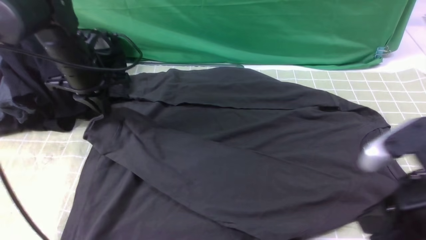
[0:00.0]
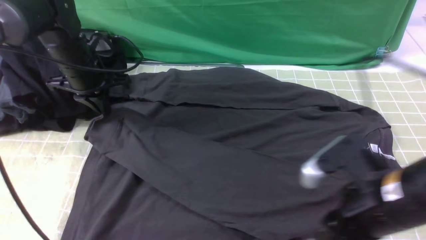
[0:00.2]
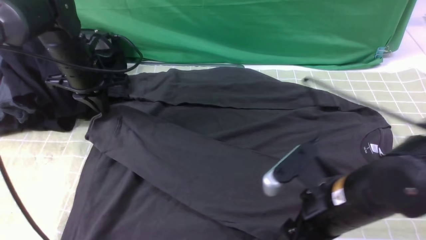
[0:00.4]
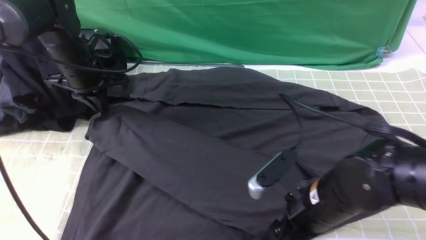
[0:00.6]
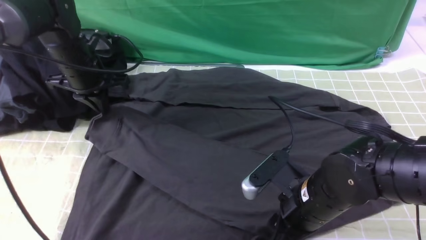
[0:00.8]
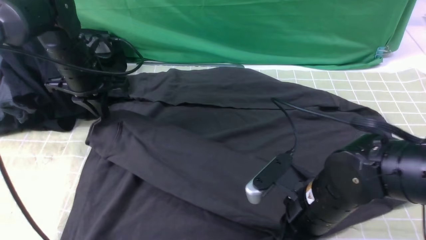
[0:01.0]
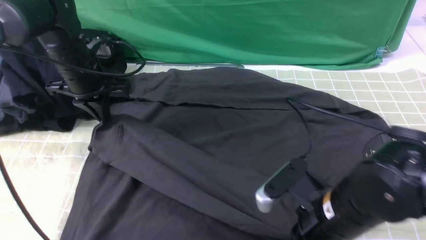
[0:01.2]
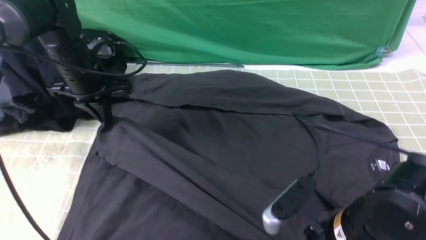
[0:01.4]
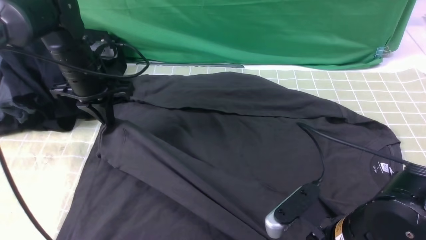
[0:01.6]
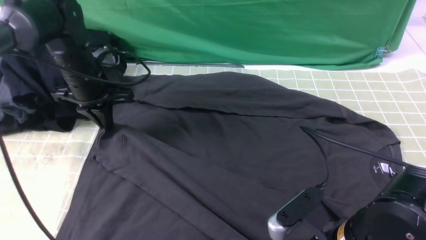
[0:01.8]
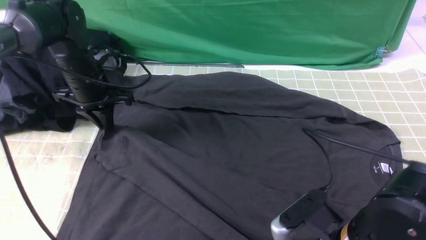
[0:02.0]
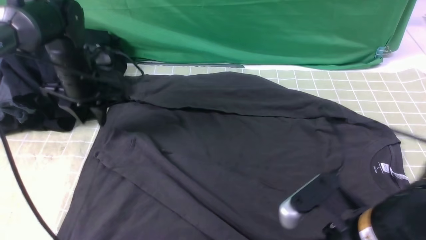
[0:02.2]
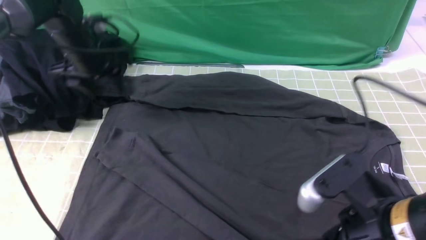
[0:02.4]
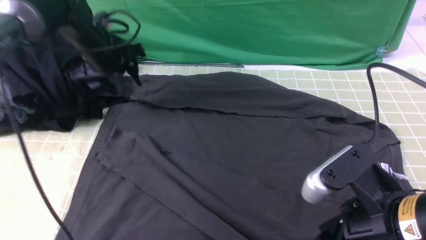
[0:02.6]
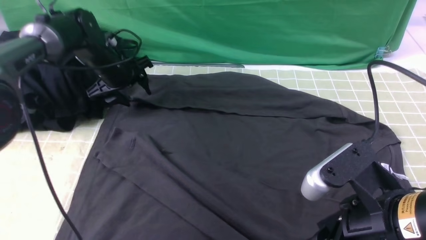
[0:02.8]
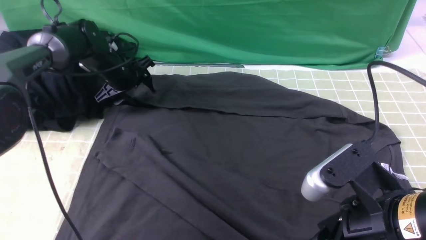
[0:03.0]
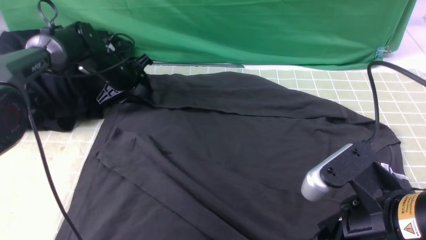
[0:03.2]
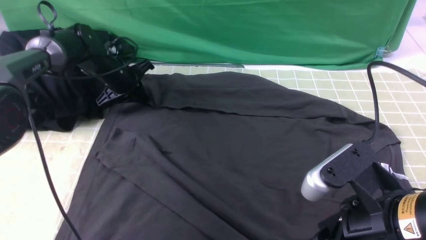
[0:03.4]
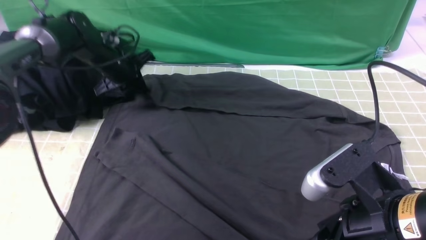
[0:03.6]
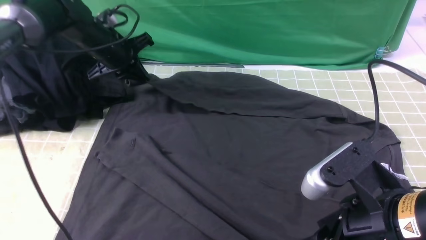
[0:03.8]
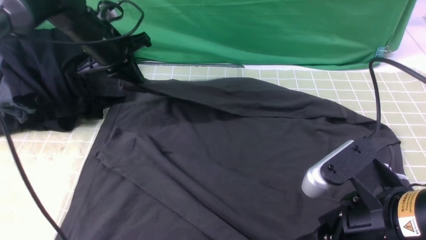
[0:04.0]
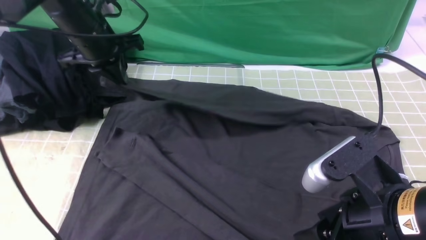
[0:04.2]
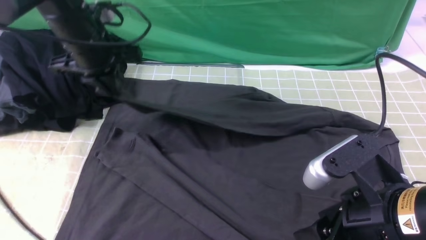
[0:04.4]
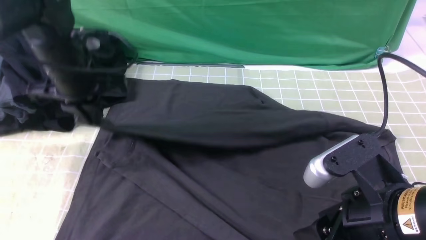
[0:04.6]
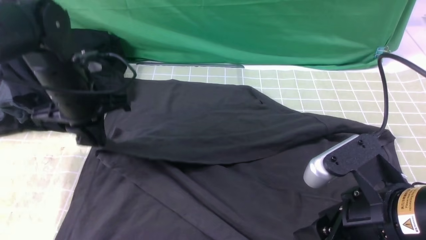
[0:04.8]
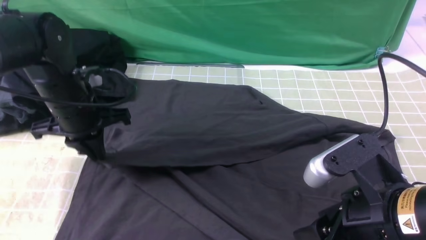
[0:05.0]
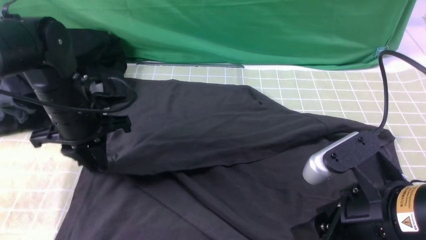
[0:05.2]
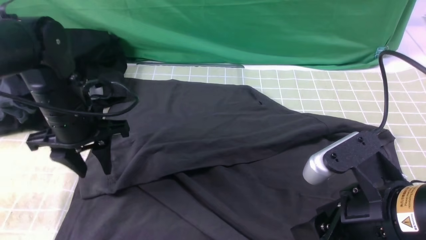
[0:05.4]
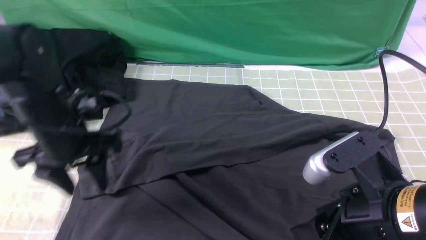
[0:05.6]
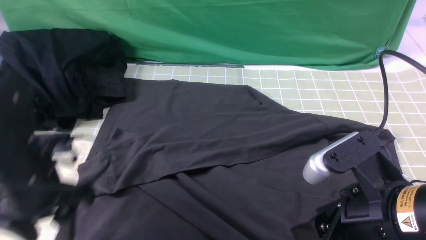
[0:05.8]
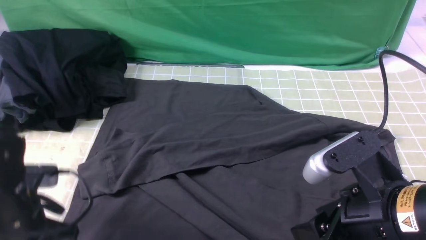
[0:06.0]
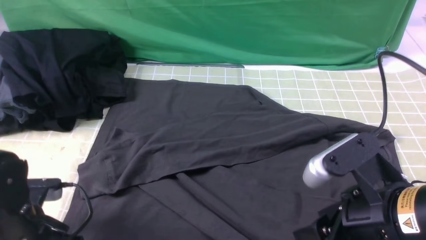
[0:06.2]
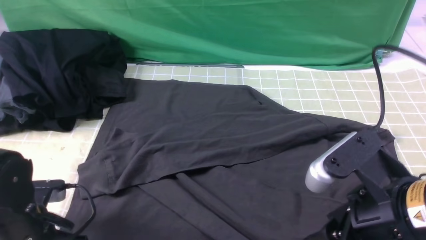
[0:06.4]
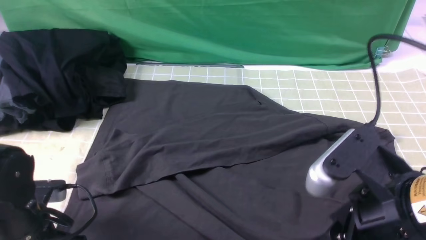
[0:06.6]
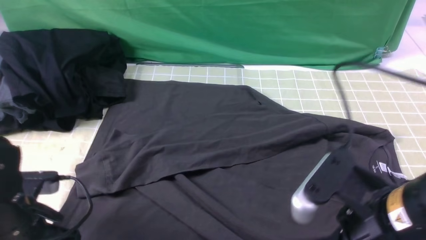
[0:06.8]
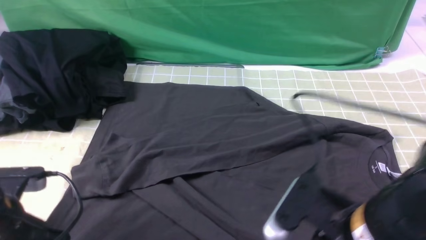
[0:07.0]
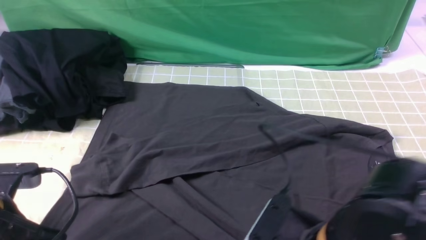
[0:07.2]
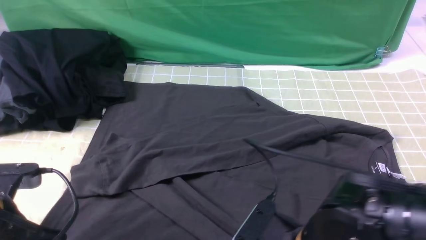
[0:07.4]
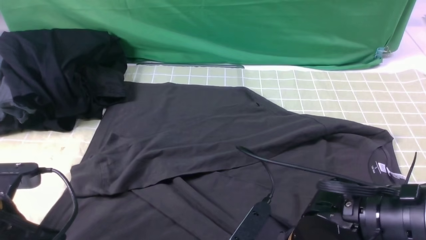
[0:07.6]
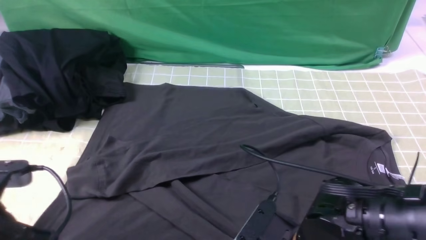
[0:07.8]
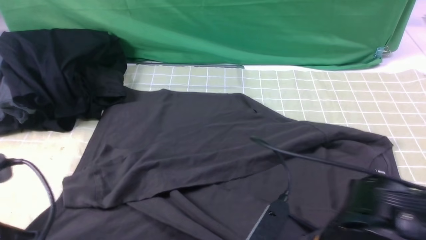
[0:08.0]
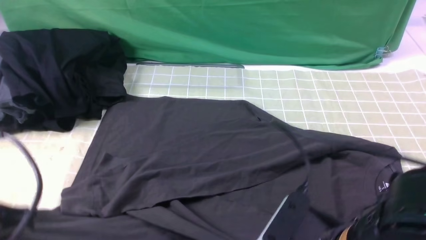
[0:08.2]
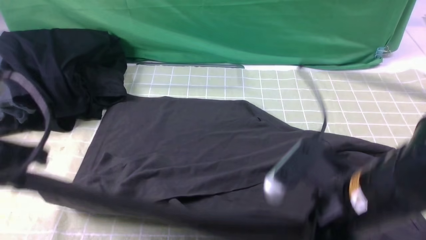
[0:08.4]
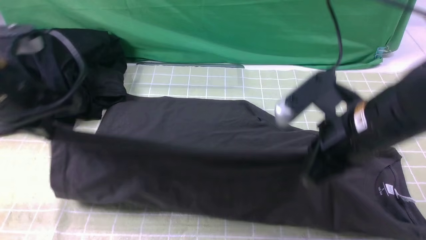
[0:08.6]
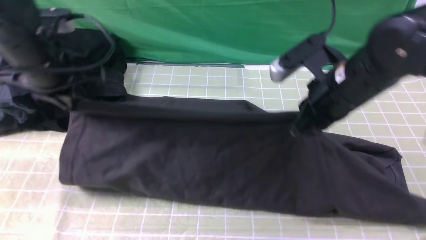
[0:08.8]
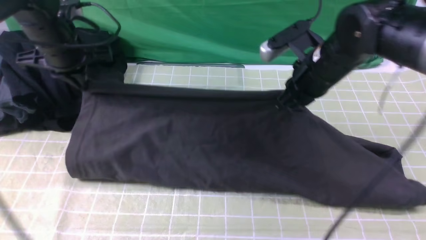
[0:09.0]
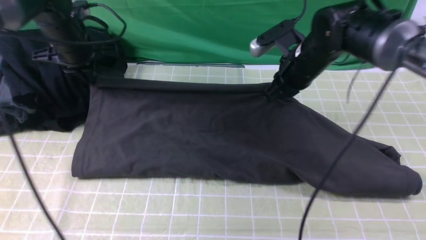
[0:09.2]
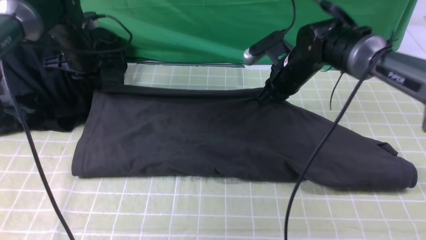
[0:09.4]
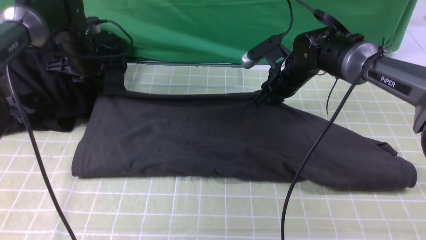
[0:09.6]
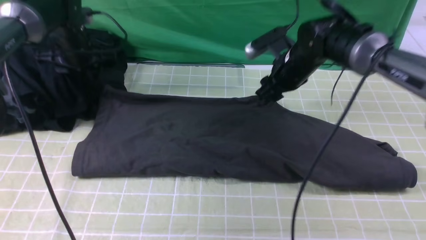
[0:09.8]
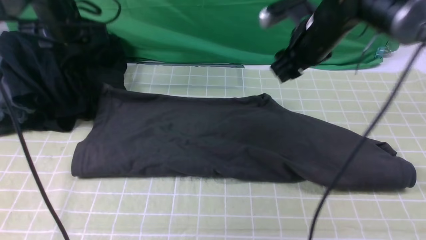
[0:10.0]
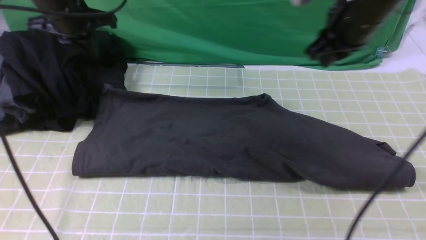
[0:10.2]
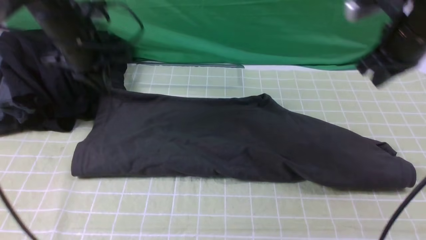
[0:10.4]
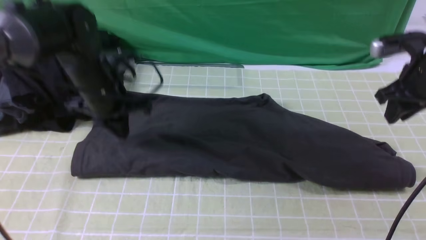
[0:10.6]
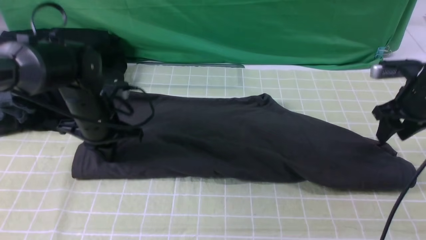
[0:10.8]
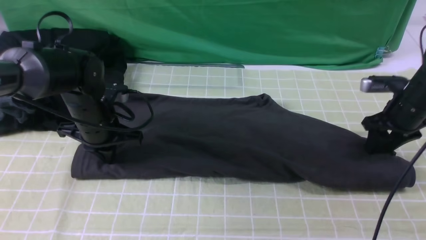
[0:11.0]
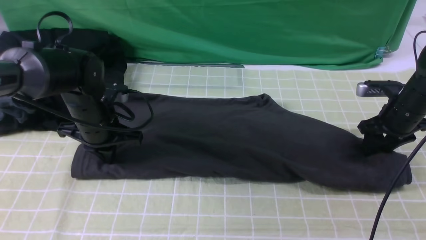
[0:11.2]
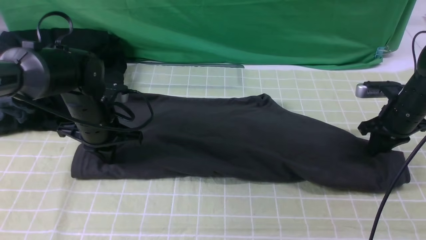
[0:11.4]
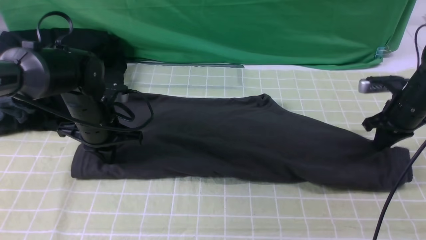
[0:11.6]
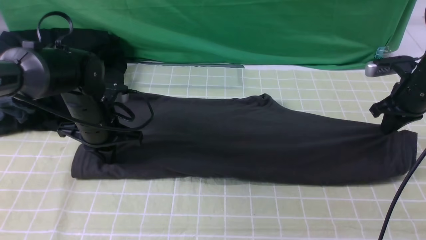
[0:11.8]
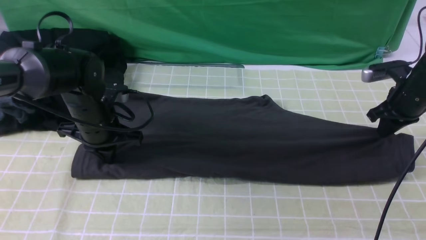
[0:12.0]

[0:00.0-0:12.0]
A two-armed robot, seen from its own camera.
Step, 0:00.0 to 0:02.2: use the left arm to drag and place the cuff at the centered position on the left edge of the fabric.
Step, 0:02.4 to 0:03.4: use the left arm to clamp the cuff farthest from it.
Step, 0:03.6 to 0:05.4: use the left arm to drag and drop the cuff onto the cuff closest to the left arm.
Step, 0:05.6 to 0:07.6: use both arms simultaneously to clamp the lower edge of the clothing fabric.
Step, 0:07.8 to 0:09.8: use both arms to drag the lower edge of the fabric forward and fold it over the upper edge.
0:00.0 to 0:01.6: The right gripper travels downward and to the left by about 10 cm, and opens, then closes again.
0:01.6 to 0:03.0: The left gripper travels forward and downward by approximately 10 cm, and opens its fingers. Meanwhile the right gripper moves upward, some 10 cm, and opens.
0:03.0 to 0:04.4: The left gripper moves upward and backward, approximately 15 cm, and closes.
0:04.4 to 0:06.0: The left gripper moves backward and downward, approximately 25 cm, and opens.
0:06.0 to 0:07.6: The left gripper changes place by approximately 5 cm, and closes. The right gripper moves downward and to the left, about 15 cm.
0:07.6 to 0:09.0: The right gripper travels forward and upward by roughly 25 cm, and closes up, while the left gripper is displaced forward by roughly 25 cm.
0:09.0 to 0:10.4: The left gripper reaches roughly 5 cm forward, then returns, and opens and closes again. Meanwhile the right gripper shifts approximately 10 cm to the right, and opens, then closes once more.
0:10.4 to 0:12.0: The left gripper travels downward by about 10 cm. The right gripper heads downward and to the right, covering approximately 15 cm, and opens and closes again.

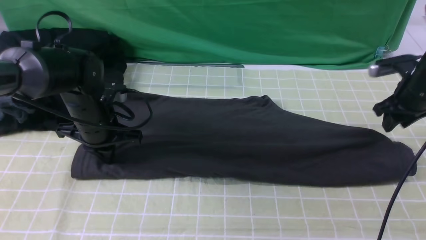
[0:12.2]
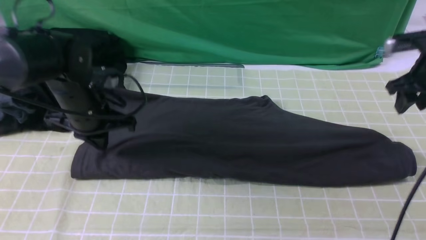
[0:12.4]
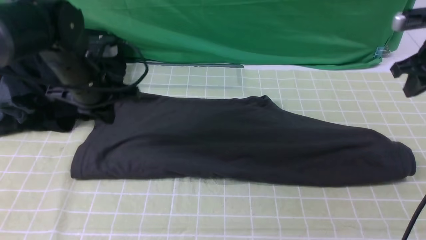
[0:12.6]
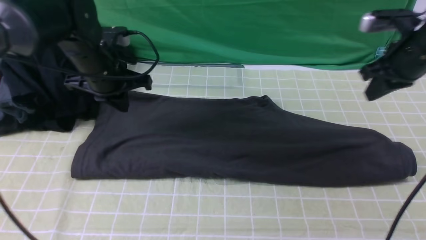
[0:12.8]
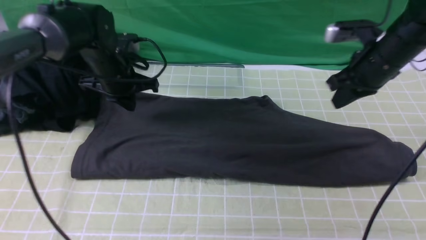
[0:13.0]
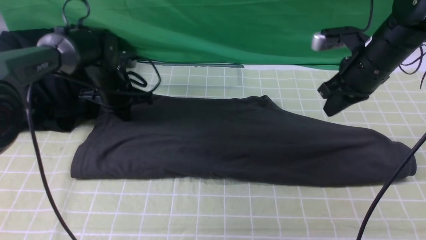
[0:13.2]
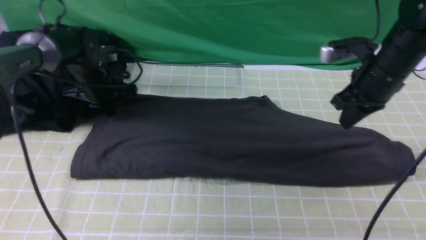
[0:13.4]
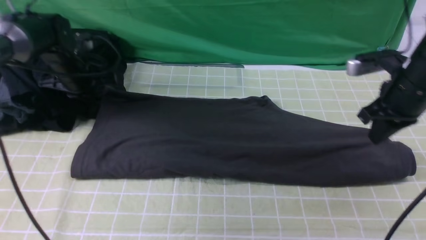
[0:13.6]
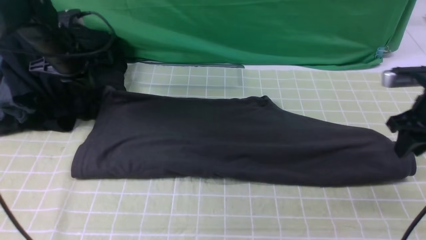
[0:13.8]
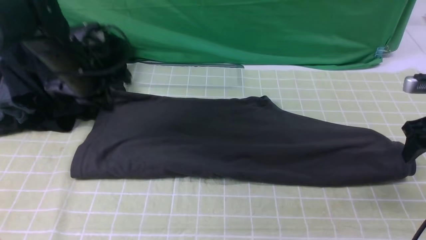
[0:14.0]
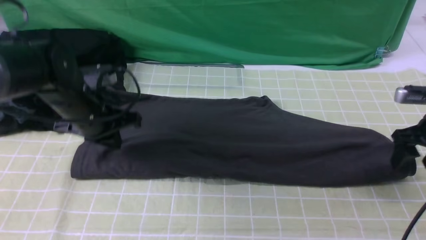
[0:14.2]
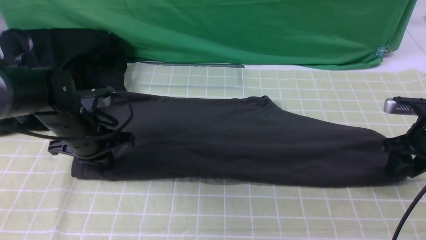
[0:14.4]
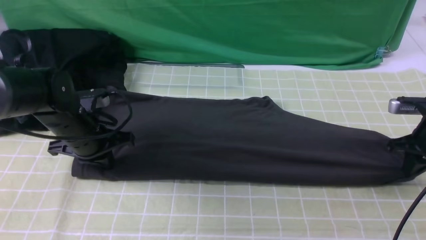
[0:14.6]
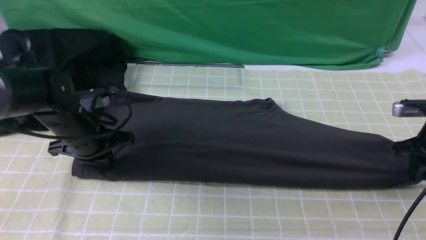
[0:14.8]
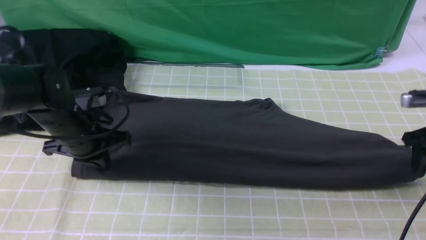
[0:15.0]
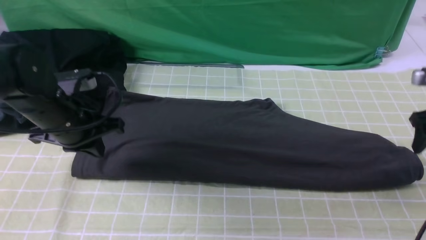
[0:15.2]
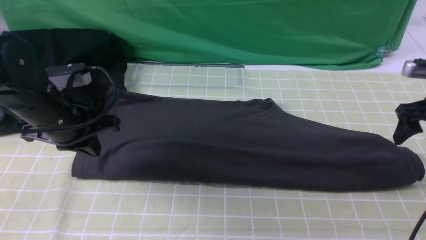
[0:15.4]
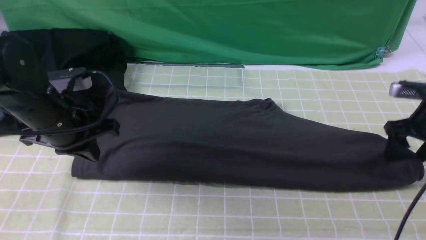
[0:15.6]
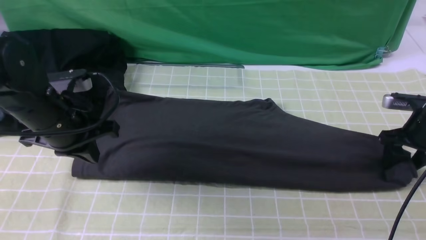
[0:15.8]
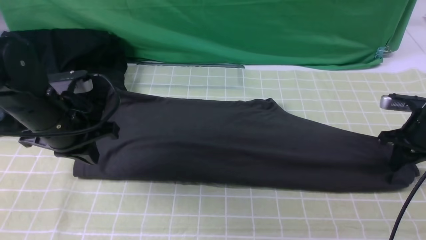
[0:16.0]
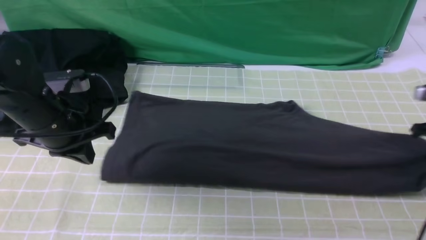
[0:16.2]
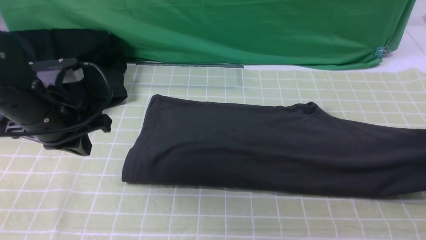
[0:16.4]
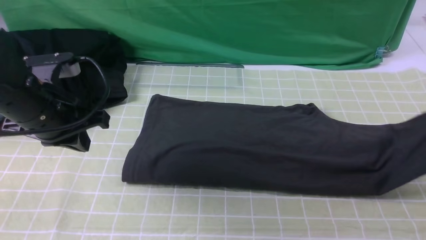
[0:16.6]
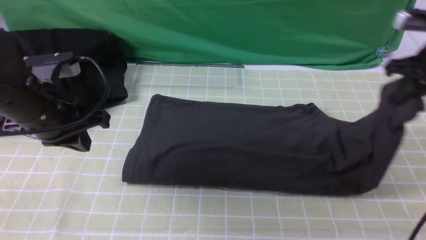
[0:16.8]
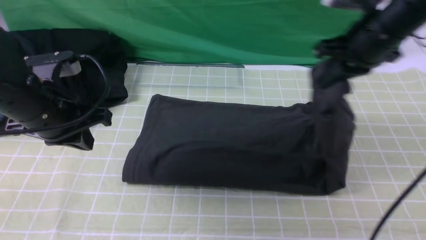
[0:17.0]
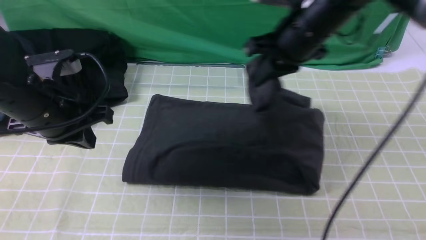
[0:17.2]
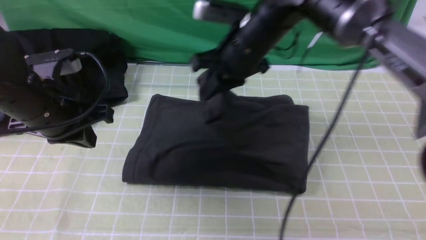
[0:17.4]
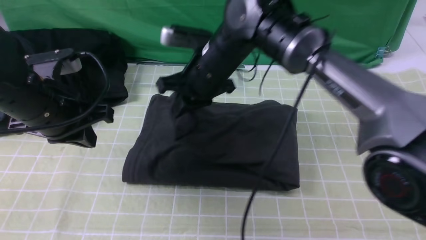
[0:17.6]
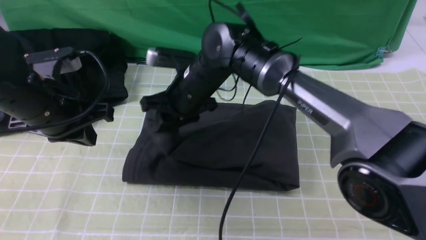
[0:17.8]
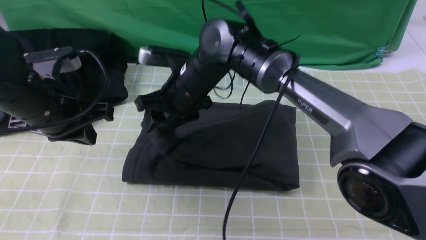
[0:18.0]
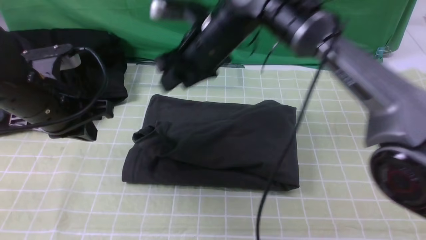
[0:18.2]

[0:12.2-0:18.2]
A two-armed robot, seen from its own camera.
Step, 0:12.2 to 0:15.8: use the right arm to clamp the right edge of the fabric.
Step, 0:16.0 to 0:18.0: use the right arm to drag the right edge of the fabric to the left and folds it over the left edge.
0:12.2 to 0:13.8: The left gripper moves forward, upward and to the left, roughly 10 cm. The right gripper is displaced backward by approximately 10 cm, moves approximately 10 cm to the left and comes back, and closes, then reopens.
0:13.8 to 0:15.2: The left gripper heads backward, covering about 10 cm, while the right gripper opens.
0:15.2 to 0:16.6: The right gripper moves upward, about 5 cm, and closes its fingers; the left gripper moves some 5 cm.
0:16.6 to 0:18.2: The right gripper is displaced to the left by about 35 cm, and opens.
